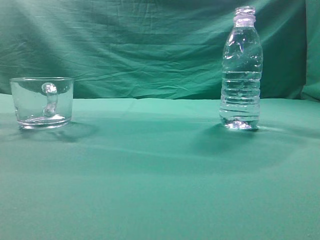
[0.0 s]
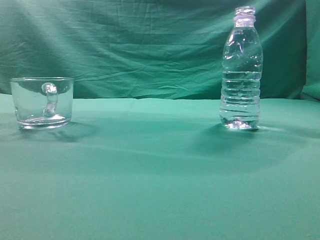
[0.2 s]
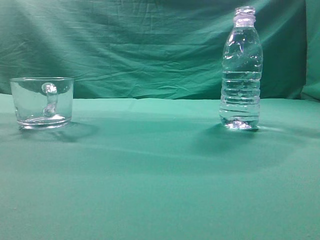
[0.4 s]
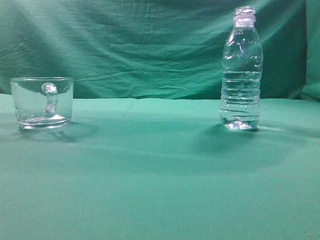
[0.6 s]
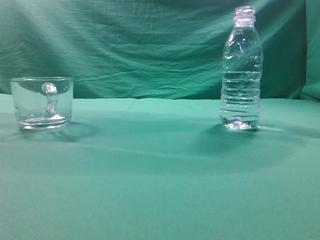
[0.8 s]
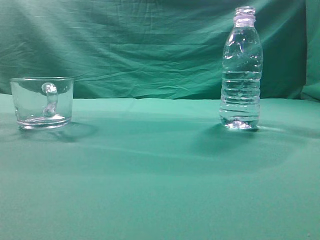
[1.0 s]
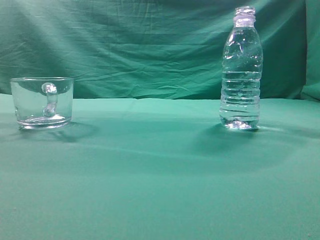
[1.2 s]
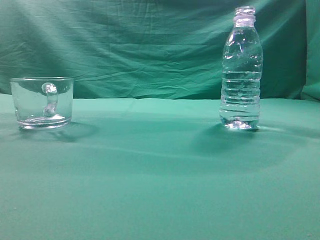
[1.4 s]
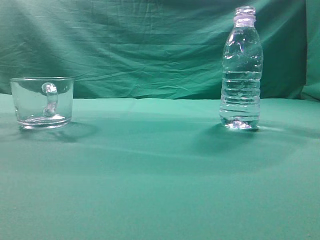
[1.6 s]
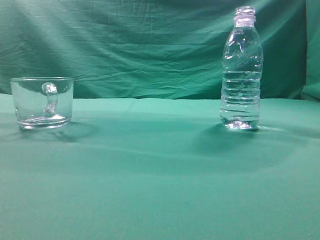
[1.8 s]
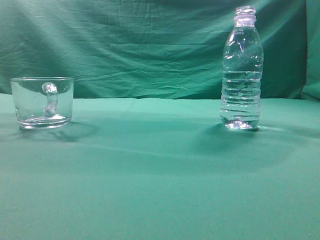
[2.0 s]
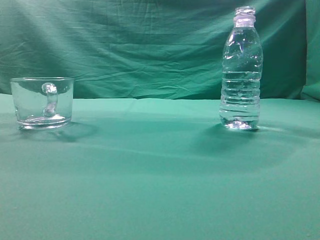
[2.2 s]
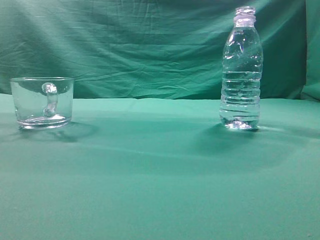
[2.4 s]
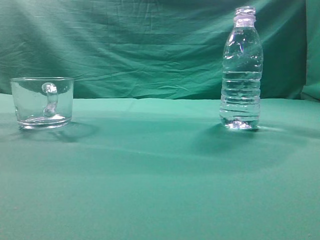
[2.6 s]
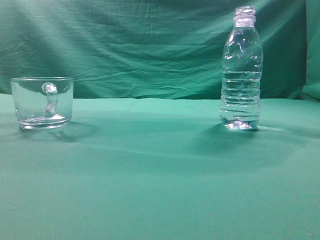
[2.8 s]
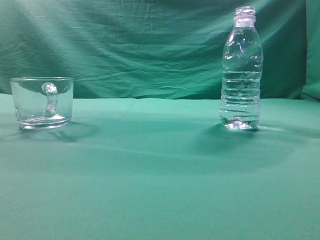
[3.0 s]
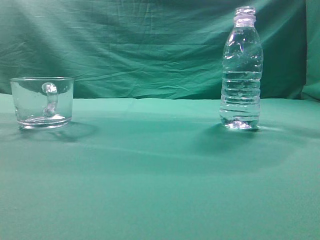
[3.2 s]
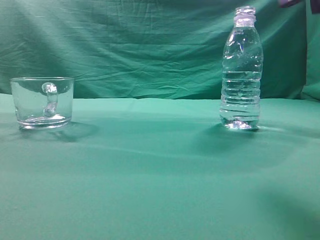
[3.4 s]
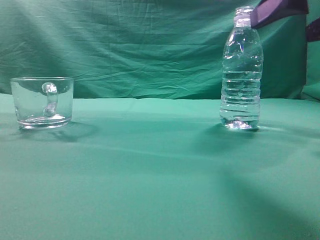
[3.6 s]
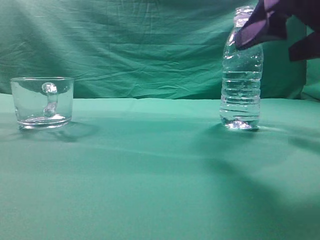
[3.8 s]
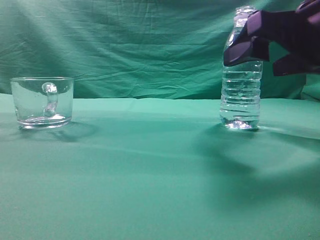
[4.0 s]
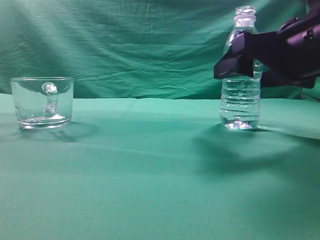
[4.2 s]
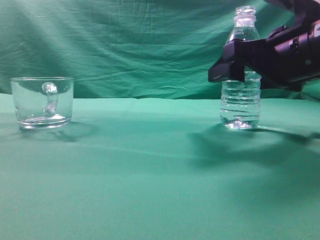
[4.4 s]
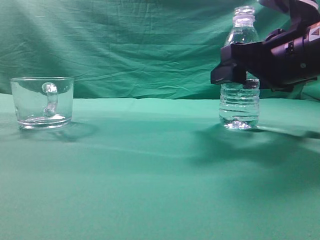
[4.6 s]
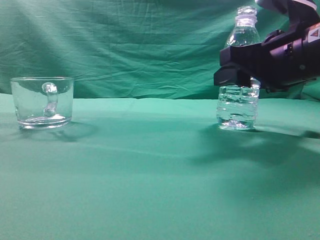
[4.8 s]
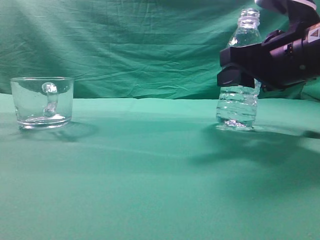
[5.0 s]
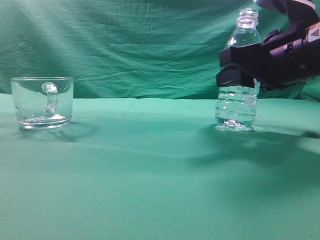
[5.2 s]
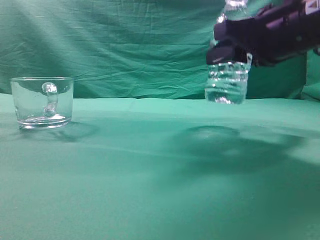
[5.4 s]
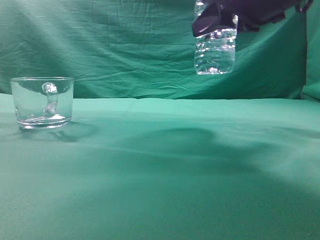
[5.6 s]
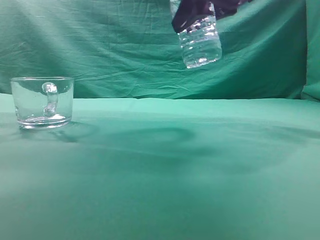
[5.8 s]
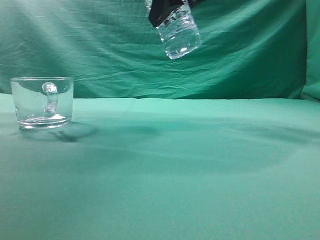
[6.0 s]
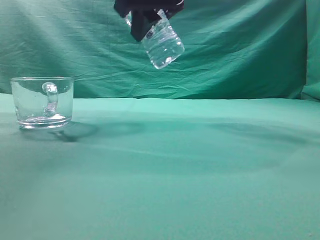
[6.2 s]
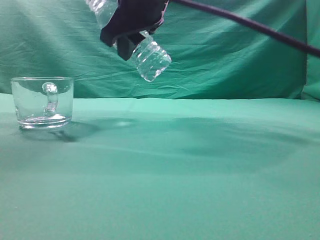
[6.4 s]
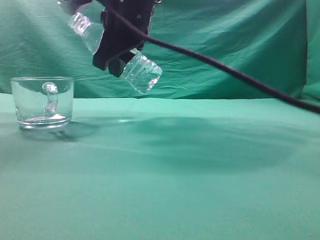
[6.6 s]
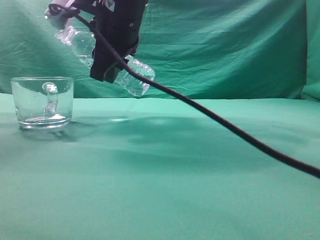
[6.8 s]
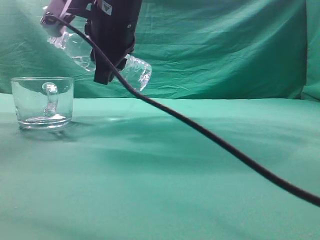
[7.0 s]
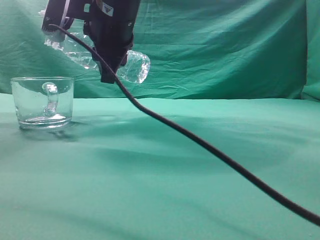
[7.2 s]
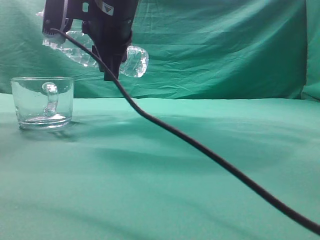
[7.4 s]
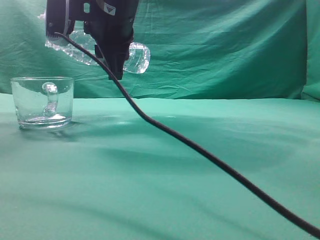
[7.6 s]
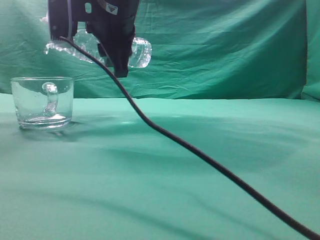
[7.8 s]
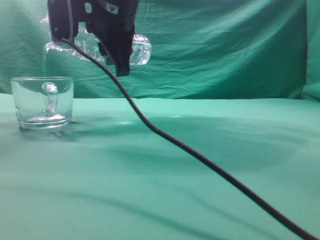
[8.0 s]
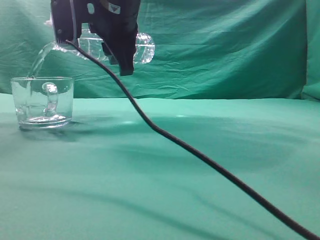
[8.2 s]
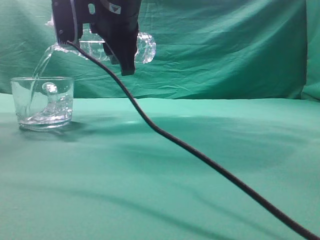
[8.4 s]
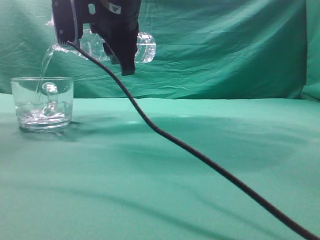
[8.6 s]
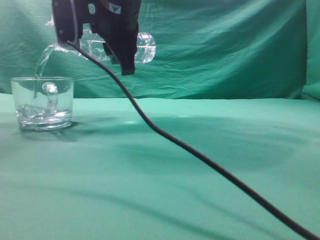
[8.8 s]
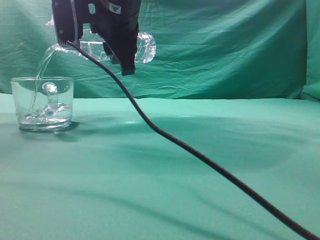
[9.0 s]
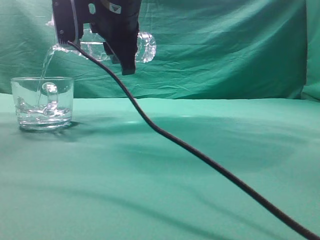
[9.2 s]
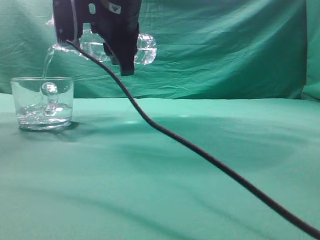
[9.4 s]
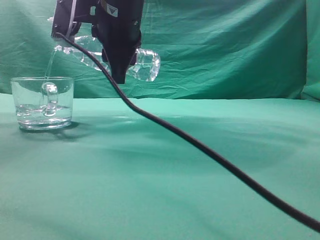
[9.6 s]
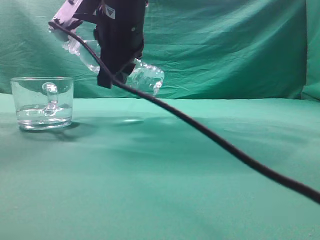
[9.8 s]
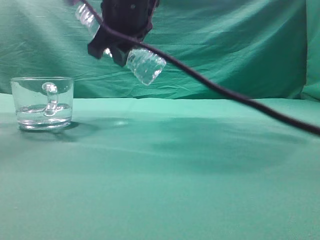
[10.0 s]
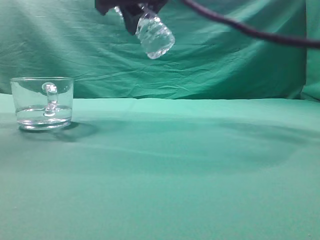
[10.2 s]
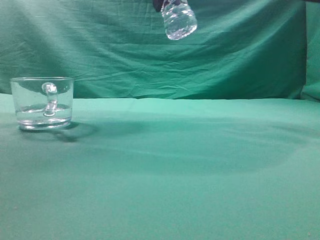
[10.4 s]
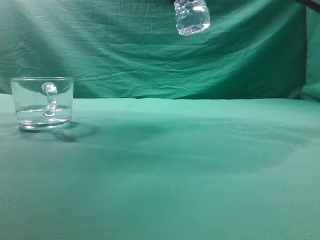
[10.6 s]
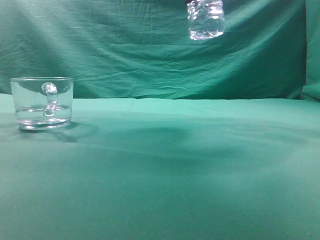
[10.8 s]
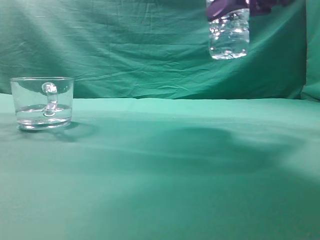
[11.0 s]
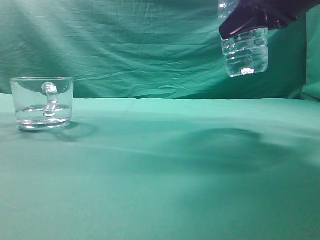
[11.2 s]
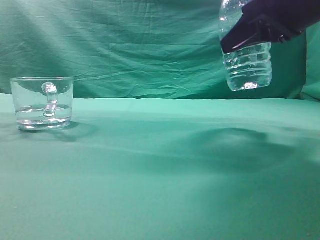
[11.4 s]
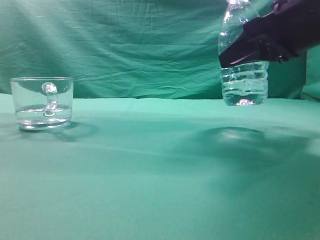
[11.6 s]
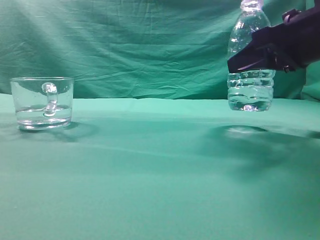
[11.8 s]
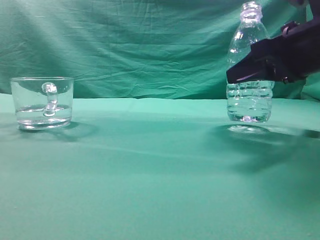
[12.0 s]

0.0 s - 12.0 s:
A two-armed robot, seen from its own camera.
Task of the whole recording: pick up the water bottle and pour the water in it into the glass.
Step, 0.0 s - 5.4 s: Grasp the mineral water bottle.
Step, 5.6 s - 10.0 s: Pour water into the teacup.
3.0 s - 4.4 s: The right gripper shifts about 20 cm forward, downward and to the left, and opens up.
4.4 s - 6.0 s: The right gripper goes about 20 cm upward and to the left, and closes up.
6.0 s - 7.6 s: The right gripper is displaced to the left and downward by about 15 cm.
7.6 s - 9.0 s: The grippers move only a little.
9.0 s - 10.4 s: The right gripper travels to the right and upward by roughly 15 cm.
10.4 s - 12.0 s: The right gripper goes about 25 cm downward and to the right.

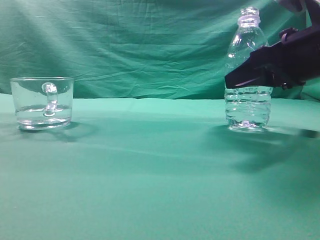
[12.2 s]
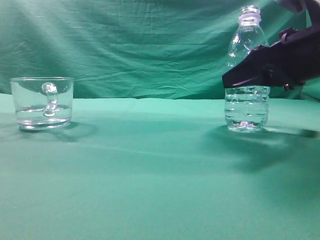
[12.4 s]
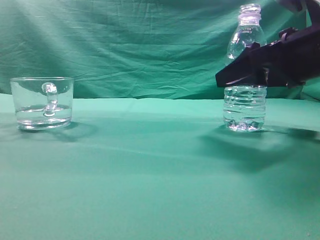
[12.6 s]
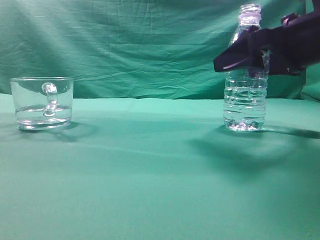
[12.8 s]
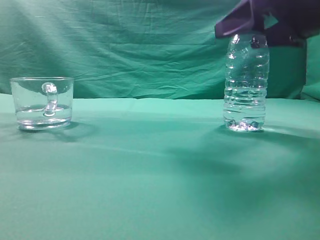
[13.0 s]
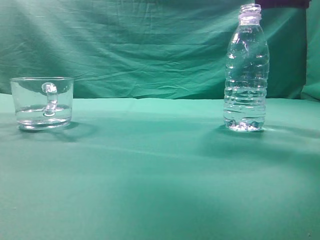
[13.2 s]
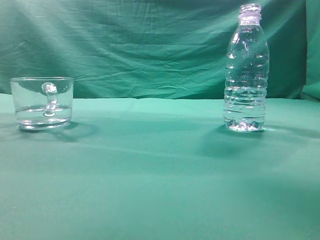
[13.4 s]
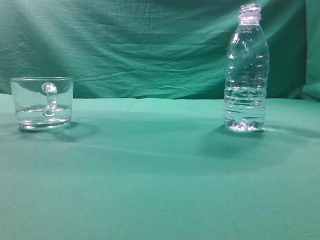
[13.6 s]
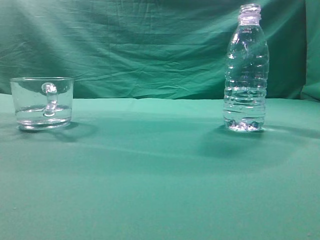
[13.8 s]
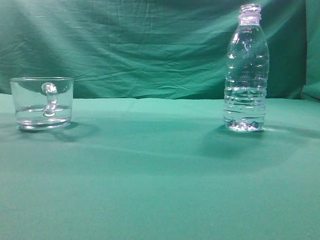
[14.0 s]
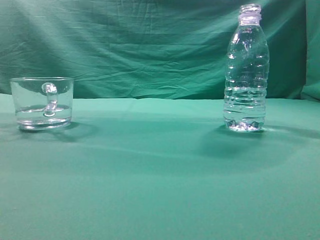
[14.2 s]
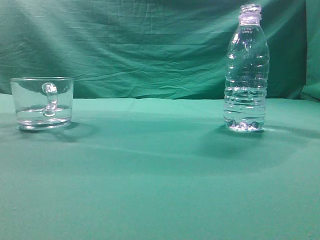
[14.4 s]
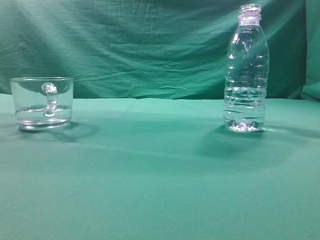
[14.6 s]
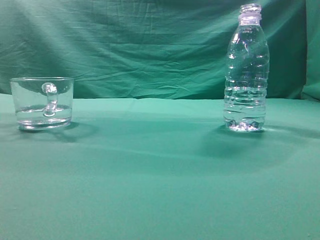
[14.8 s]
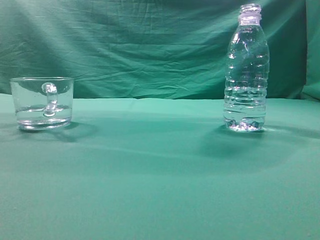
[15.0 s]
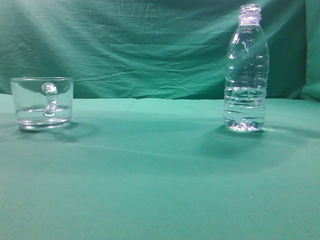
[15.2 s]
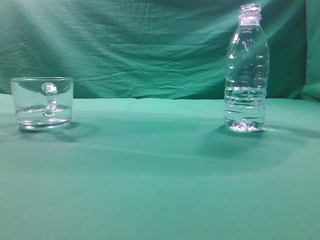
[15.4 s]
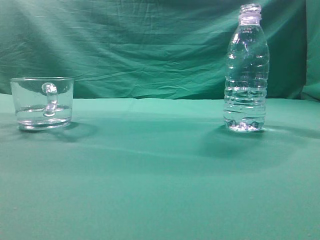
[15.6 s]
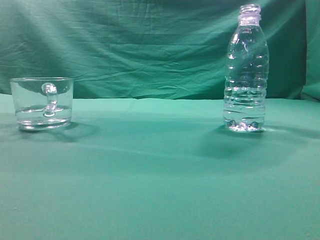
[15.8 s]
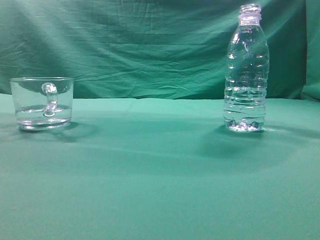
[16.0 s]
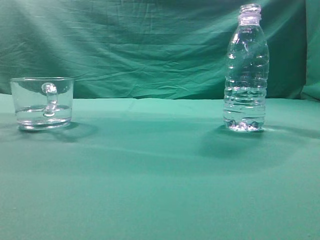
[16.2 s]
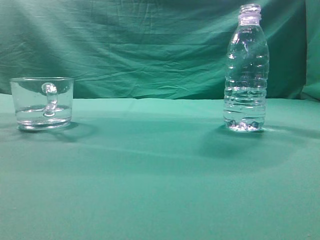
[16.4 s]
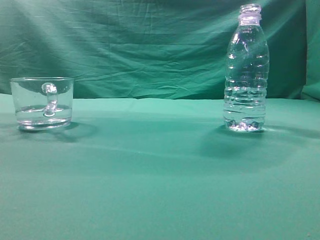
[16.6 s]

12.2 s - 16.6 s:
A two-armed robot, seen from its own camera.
Task of the whole recording: pick up the water bottle and pour the water in it into the glass.
12.2 s - 13.6 s: The right gripper goes some 20 cm upward and backward, and opens, then closes once more.
